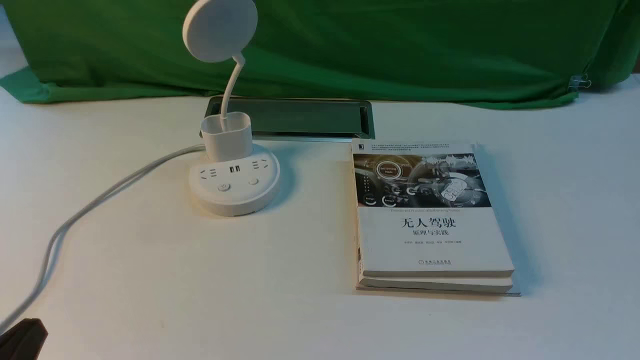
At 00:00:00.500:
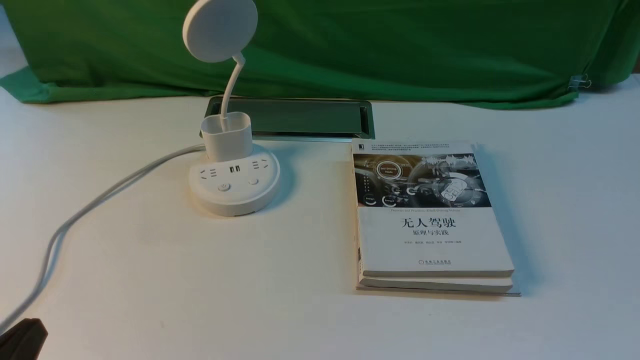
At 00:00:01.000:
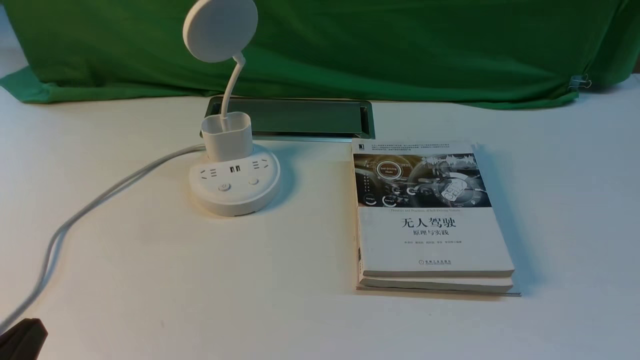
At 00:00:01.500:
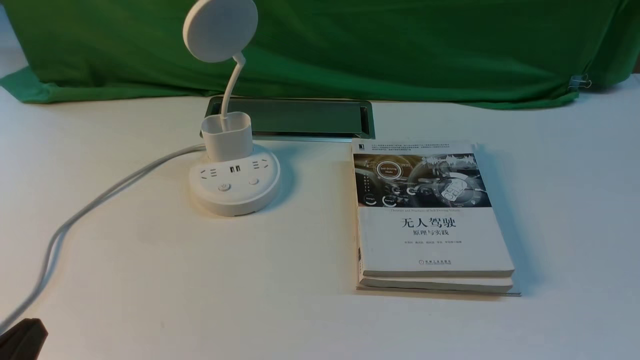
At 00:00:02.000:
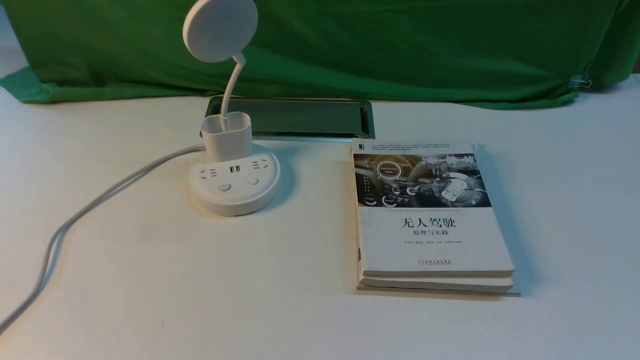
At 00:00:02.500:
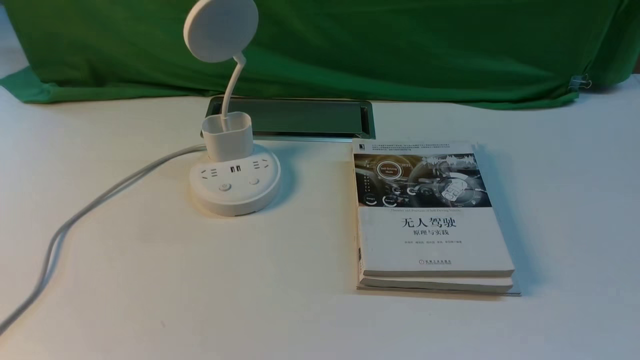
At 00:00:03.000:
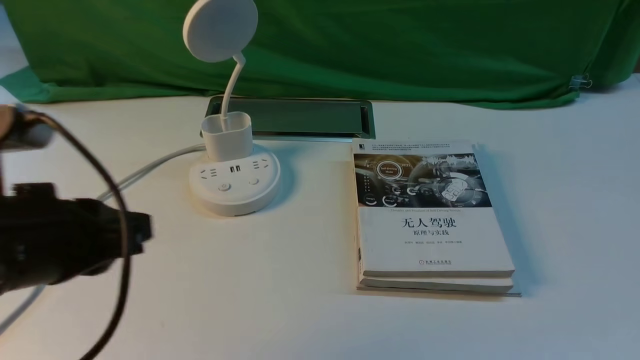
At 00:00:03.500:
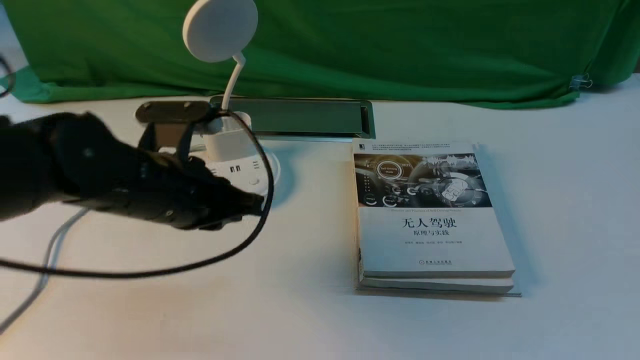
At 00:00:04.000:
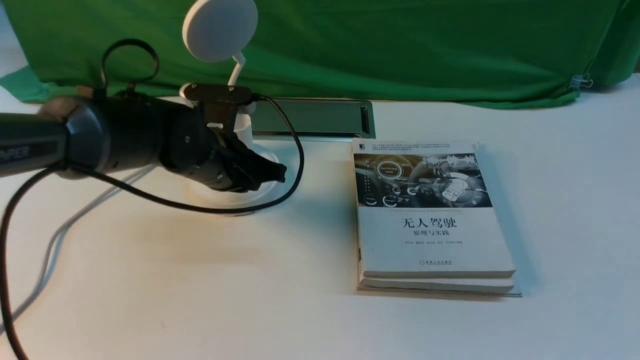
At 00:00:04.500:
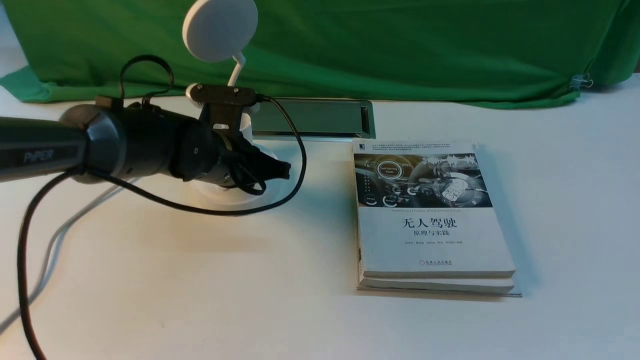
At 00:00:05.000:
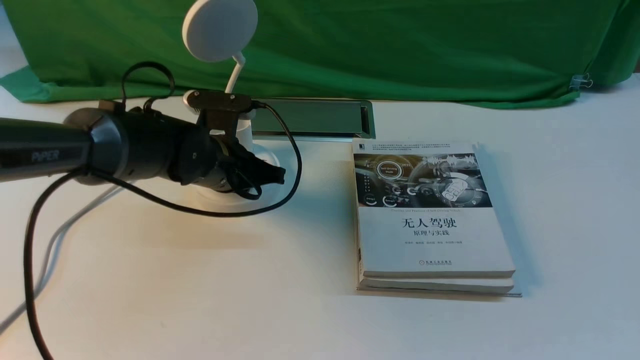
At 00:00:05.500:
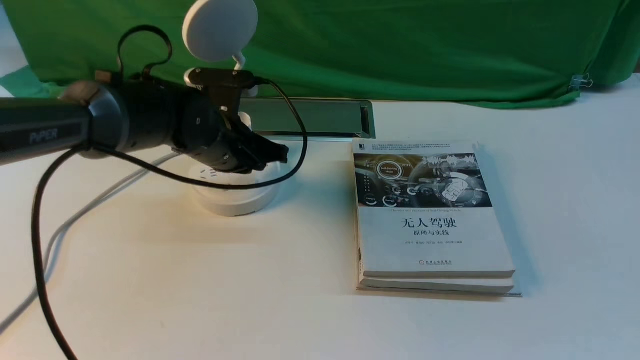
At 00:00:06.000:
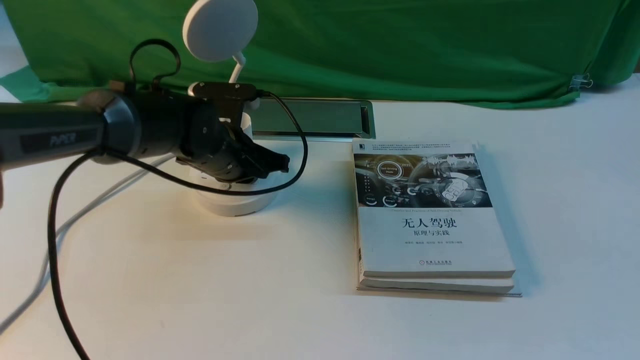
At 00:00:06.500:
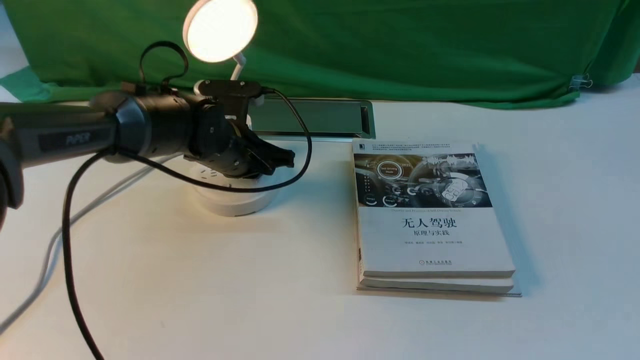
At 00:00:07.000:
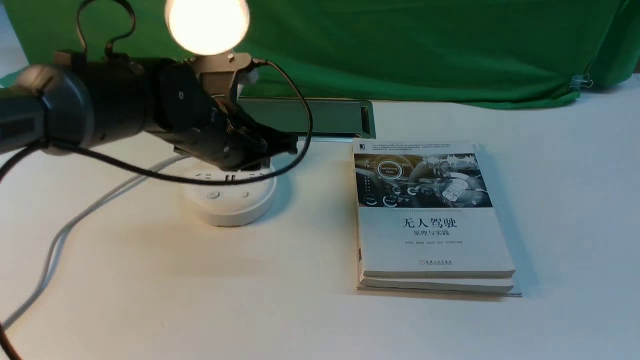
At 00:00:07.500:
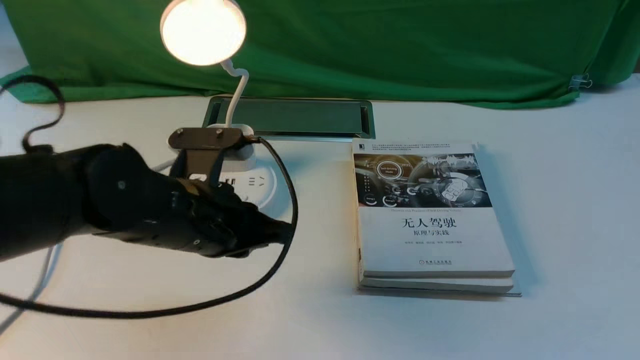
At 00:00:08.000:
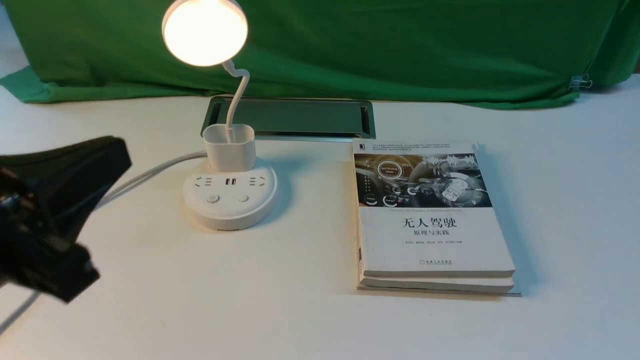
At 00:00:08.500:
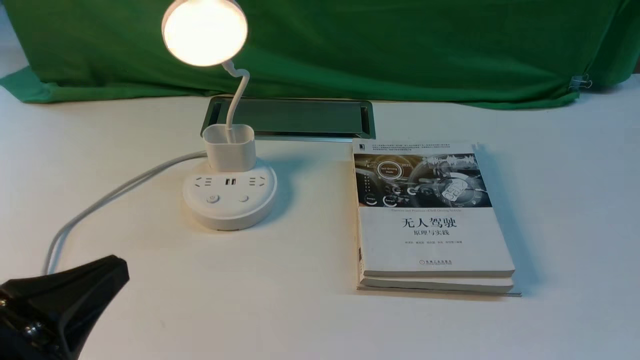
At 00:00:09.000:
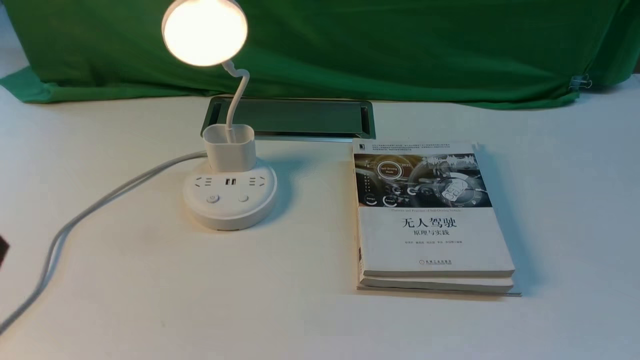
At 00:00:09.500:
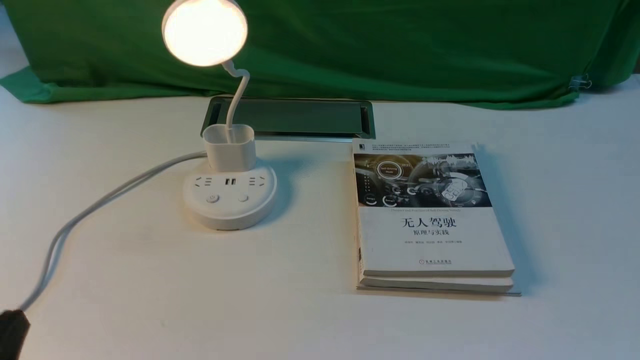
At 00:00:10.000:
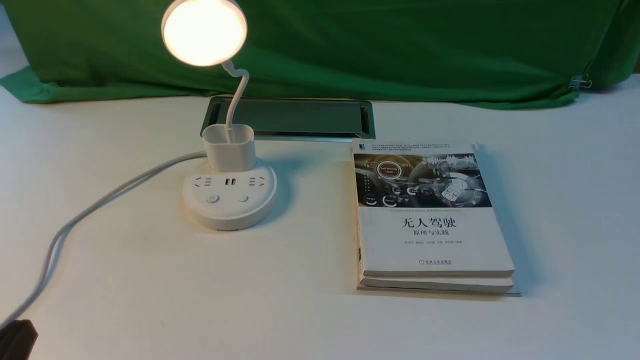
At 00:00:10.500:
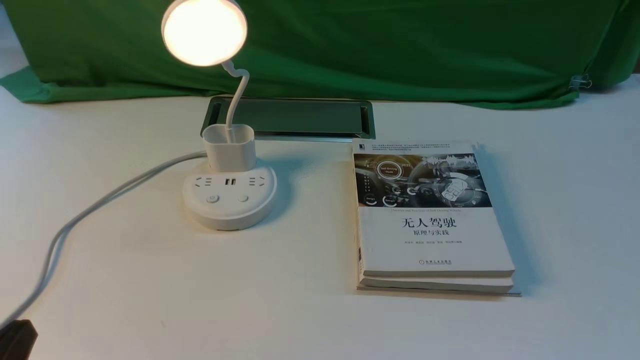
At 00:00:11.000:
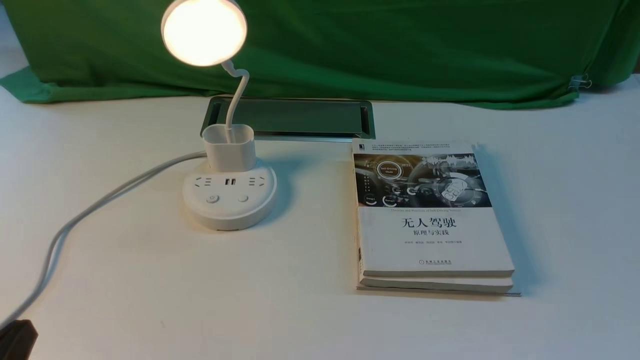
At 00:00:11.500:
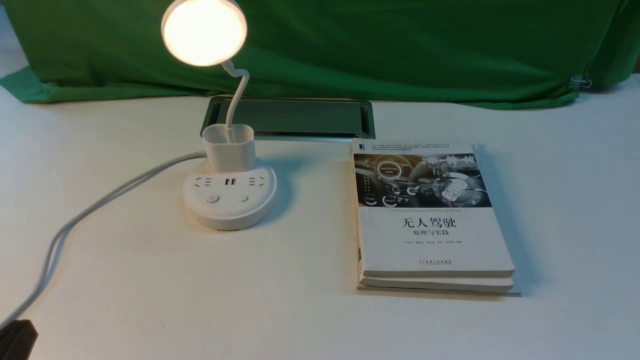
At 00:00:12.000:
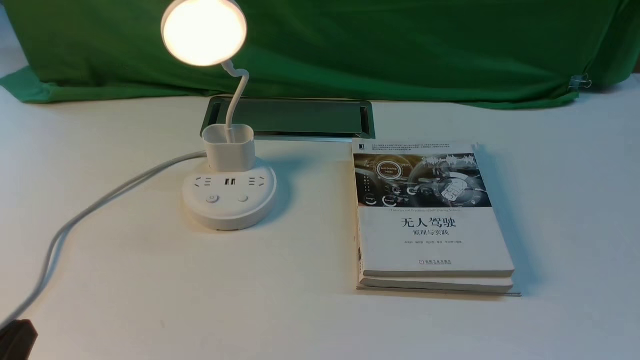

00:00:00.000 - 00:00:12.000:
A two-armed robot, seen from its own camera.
Step, 00:00:00.000 - 00:00:07.000: use the left arm to press the button switch on the lamp holder.
00:00:00.000 - 00:00:02.000: The left gripper is displaced upward by approximately 5 cm.
00:00:02.000 - 00:00:04.000: The left gripper moves forward and to the right, approximately 35 cm.
00:00:04.000 - 00:00:06.000: The grippers make only small movements.
00:00:06.000 - 00:00:08.000: The left gripper travels backward and upward by some 35 cm.
00:00:08.000 - 00:00:10.000: The left gripper goes roughly 15 cm downward, to the left and backward.
00:00:10.000 - 00:00:12.000: The two grippers keep their place.

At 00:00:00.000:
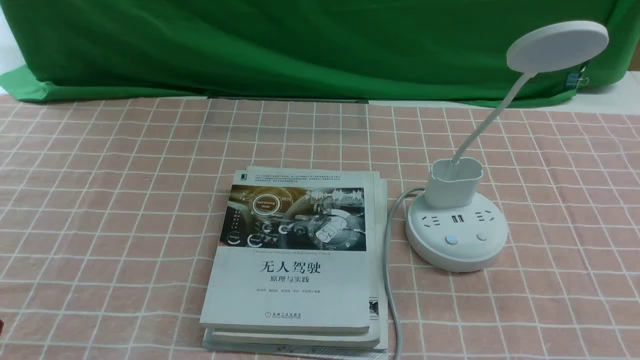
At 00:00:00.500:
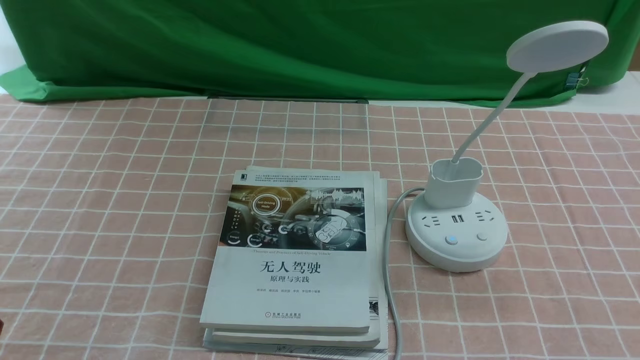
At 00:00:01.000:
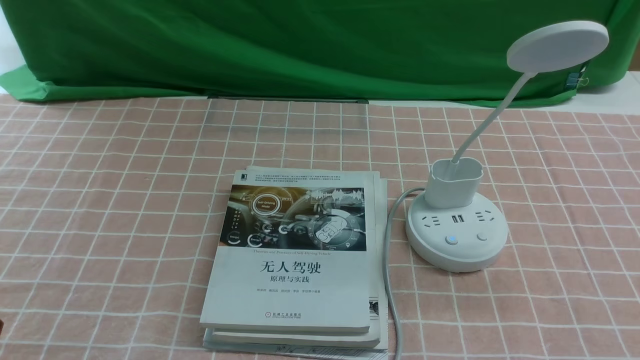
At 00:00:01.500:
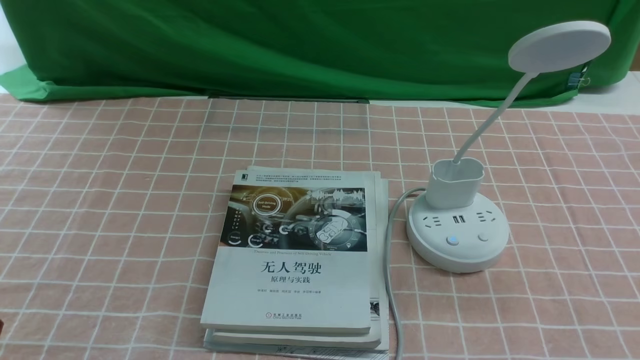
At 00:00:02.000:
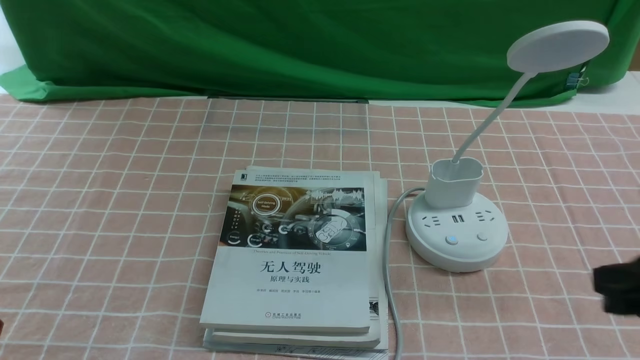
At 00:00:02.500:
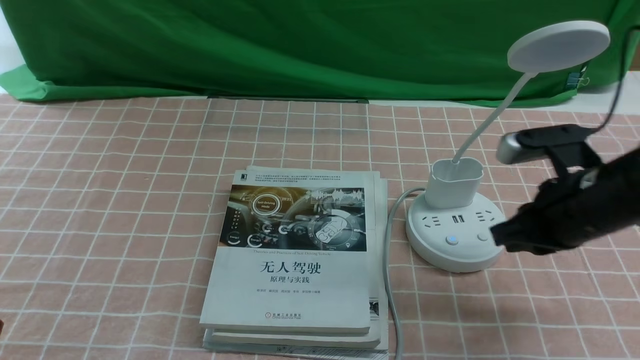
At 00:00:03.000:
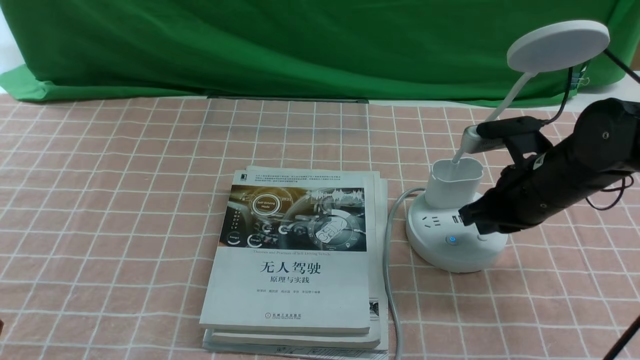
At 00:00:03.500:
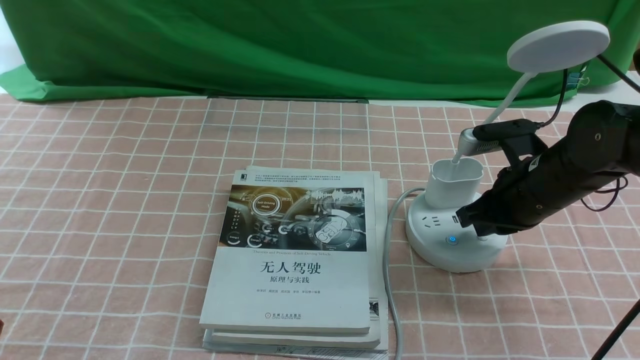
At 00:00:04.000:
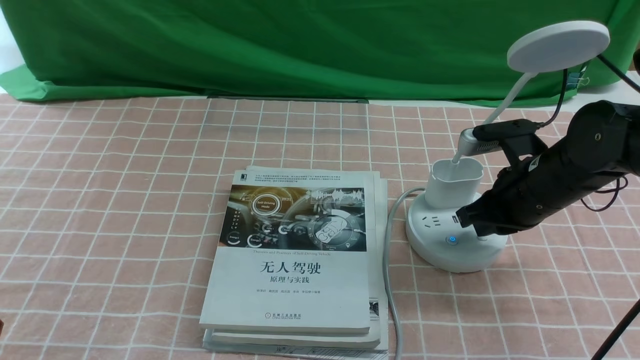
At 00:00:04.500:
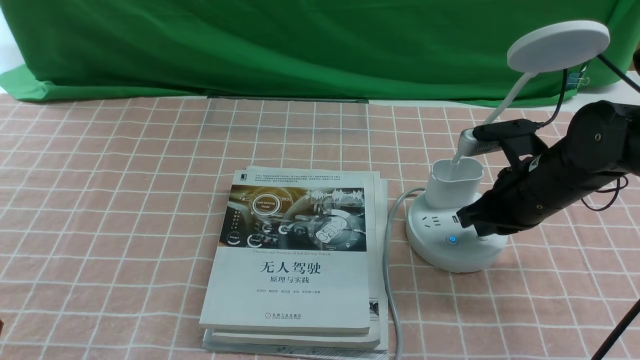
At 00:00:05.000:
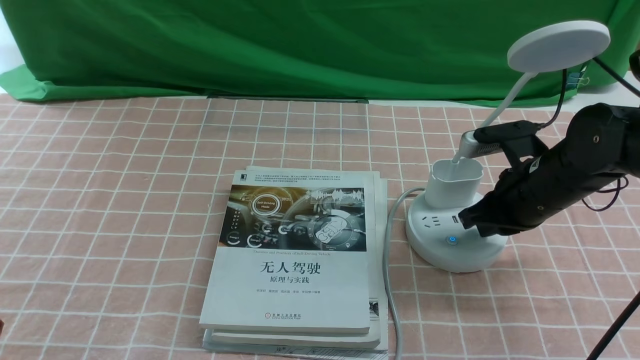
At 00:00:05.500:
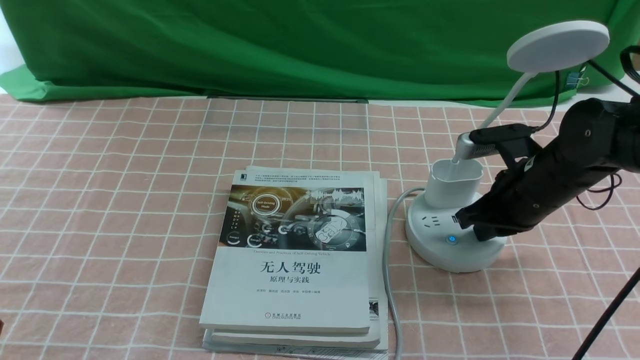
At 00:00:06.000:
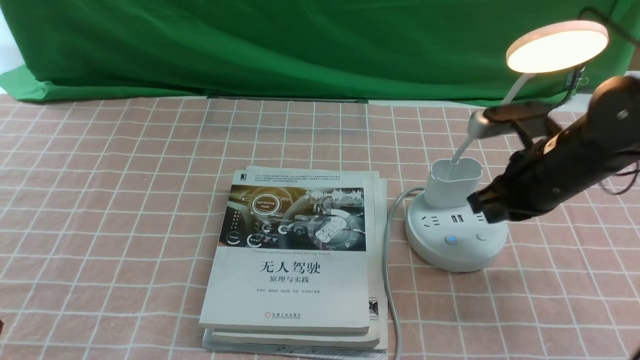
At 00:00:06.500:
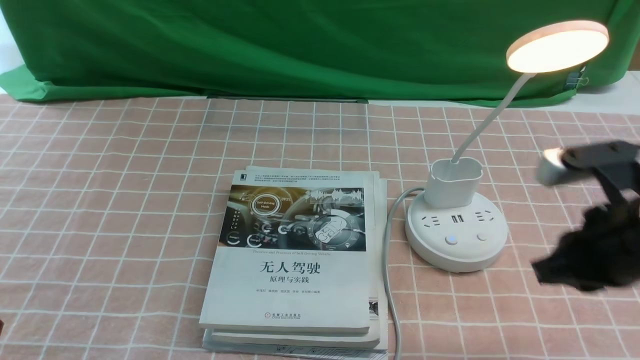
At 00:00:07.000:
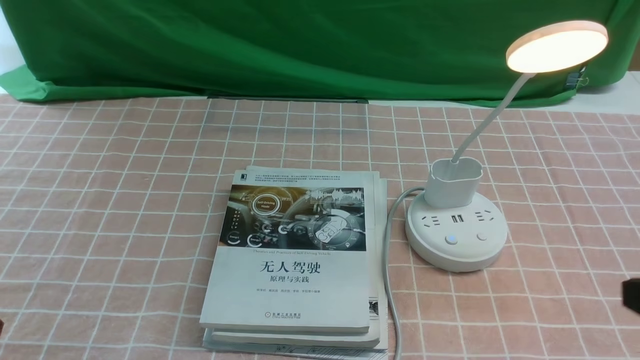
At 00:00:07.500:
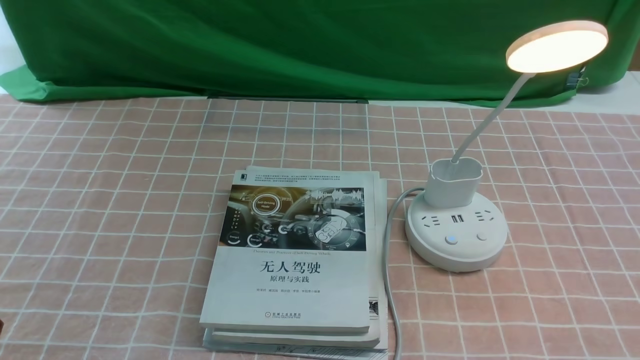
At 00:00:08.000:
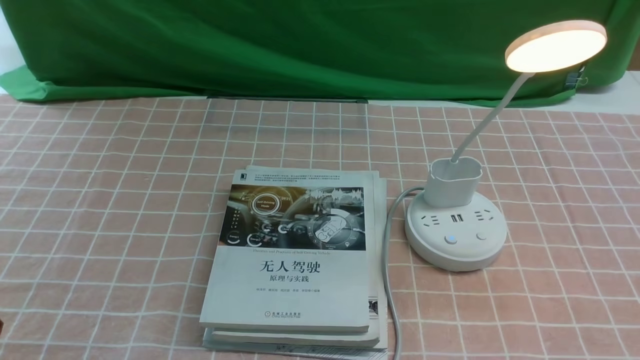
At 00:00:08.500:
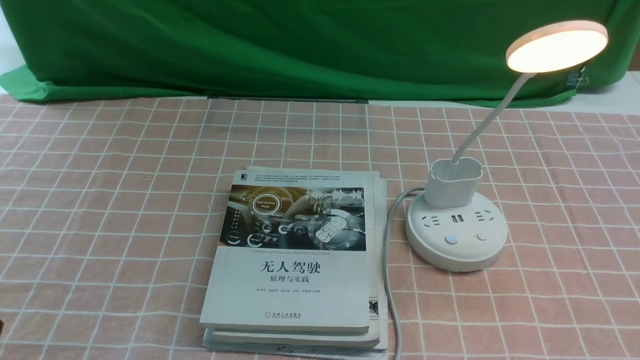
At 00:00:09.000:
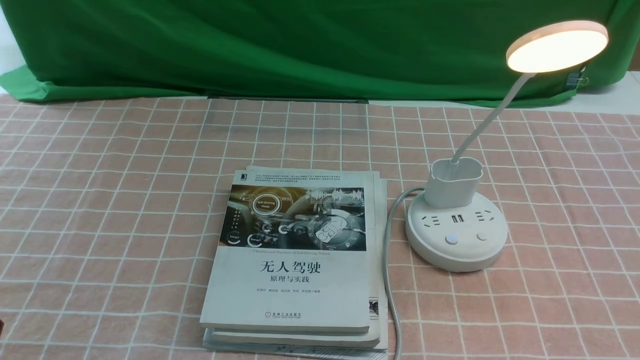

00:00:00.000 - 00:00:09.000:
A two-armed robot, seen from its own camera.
Step, 00:00:00.000 - 00:00:06.000: use the right arm to press the button switch on the lamp holder.
00:00:00.000 - 00:00:02.000: The right gripper travels forward and upward by approximately 15 cm, and closes.
00:00:02.000 - 00:00:04.500: The right gripper shifts roughly 20 cm forward and downward.
00:00:04.500 - 00:00:07.000: The right gripper moves backward and upward, approximately 25 cm.
